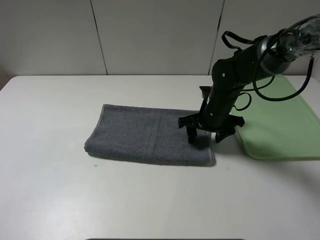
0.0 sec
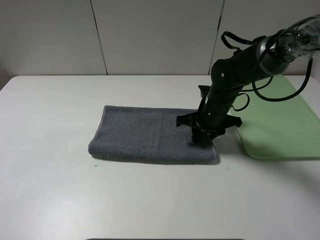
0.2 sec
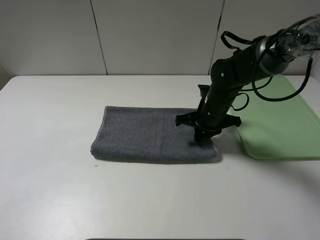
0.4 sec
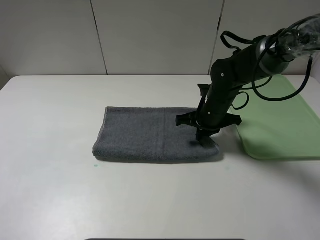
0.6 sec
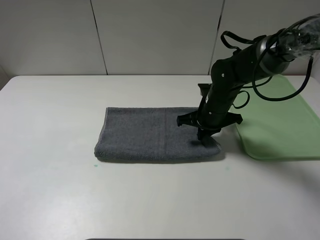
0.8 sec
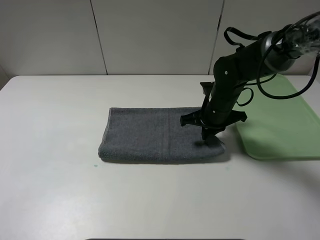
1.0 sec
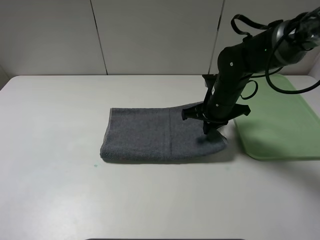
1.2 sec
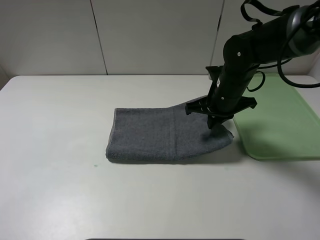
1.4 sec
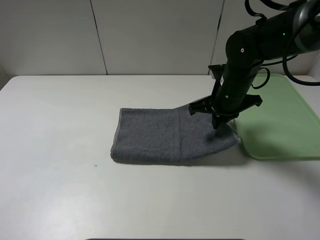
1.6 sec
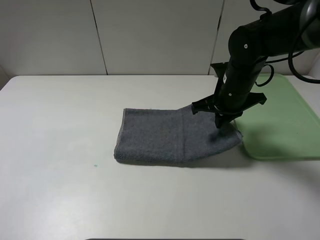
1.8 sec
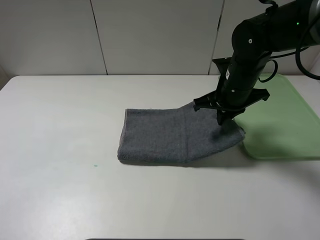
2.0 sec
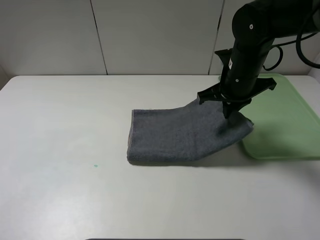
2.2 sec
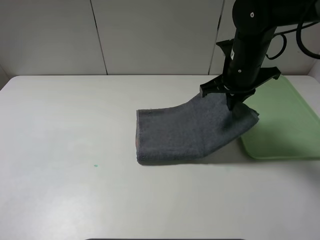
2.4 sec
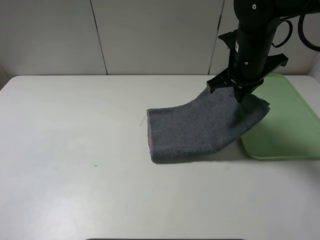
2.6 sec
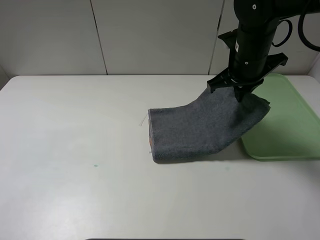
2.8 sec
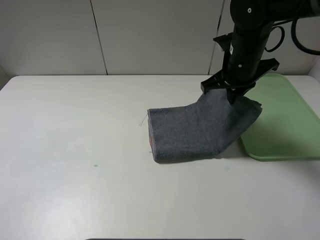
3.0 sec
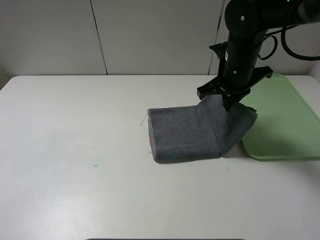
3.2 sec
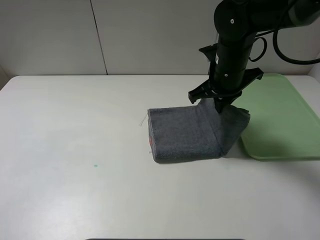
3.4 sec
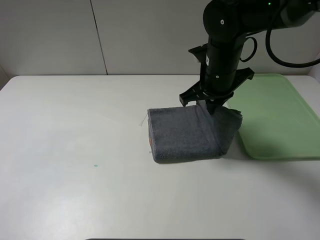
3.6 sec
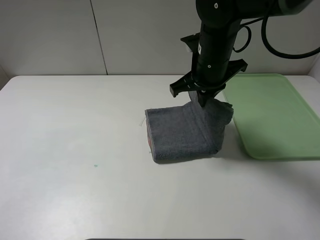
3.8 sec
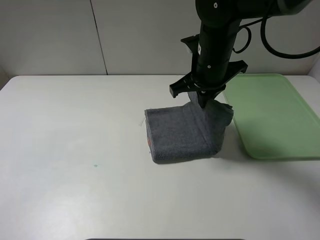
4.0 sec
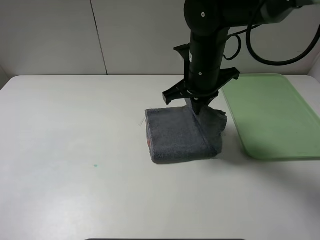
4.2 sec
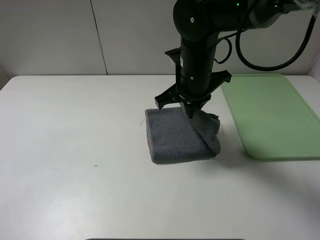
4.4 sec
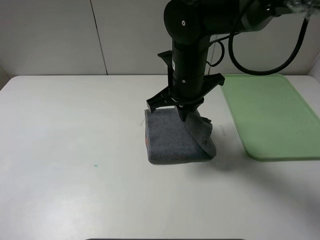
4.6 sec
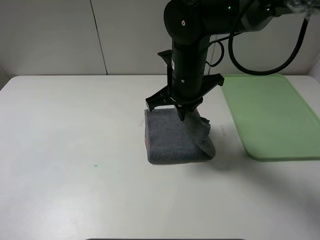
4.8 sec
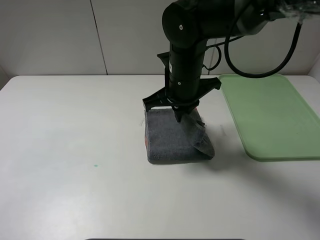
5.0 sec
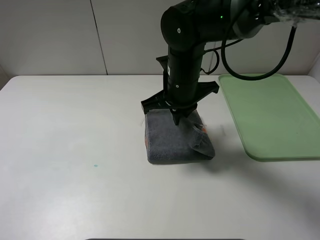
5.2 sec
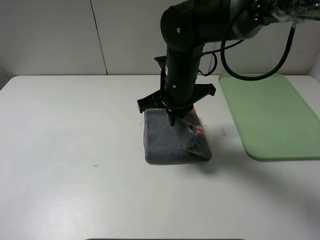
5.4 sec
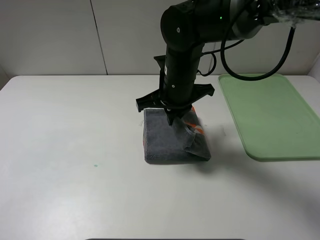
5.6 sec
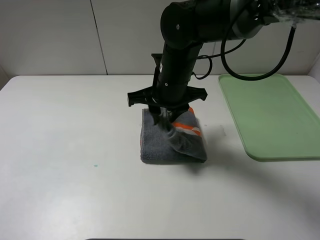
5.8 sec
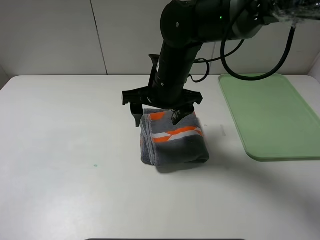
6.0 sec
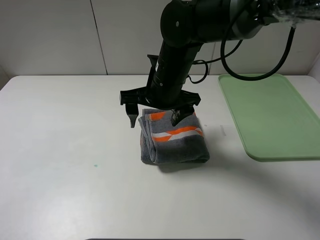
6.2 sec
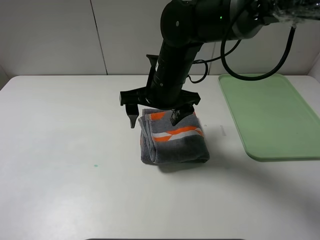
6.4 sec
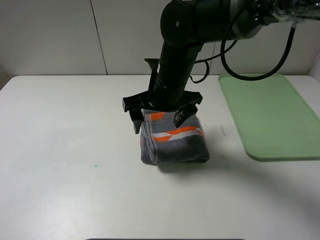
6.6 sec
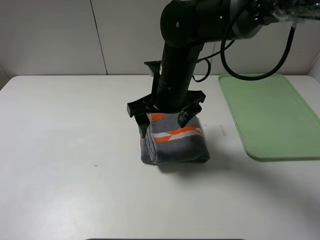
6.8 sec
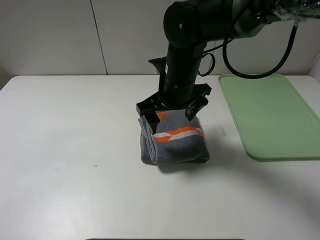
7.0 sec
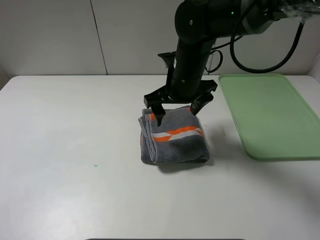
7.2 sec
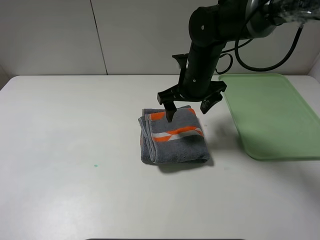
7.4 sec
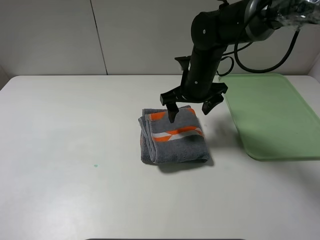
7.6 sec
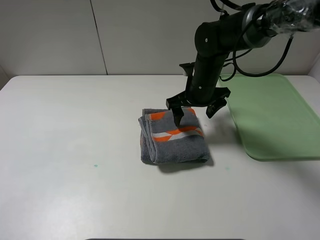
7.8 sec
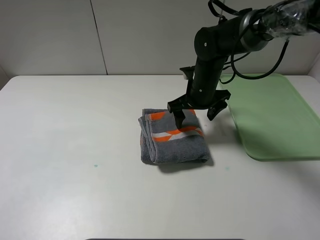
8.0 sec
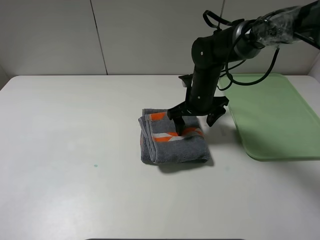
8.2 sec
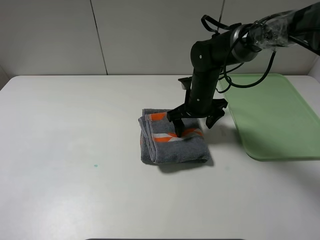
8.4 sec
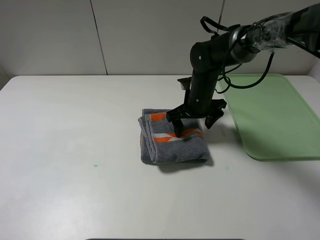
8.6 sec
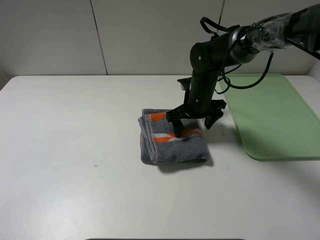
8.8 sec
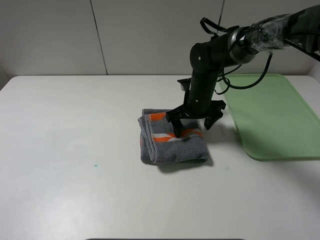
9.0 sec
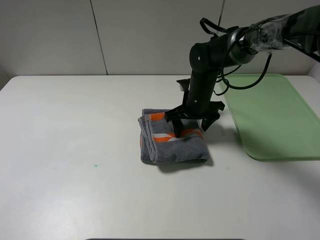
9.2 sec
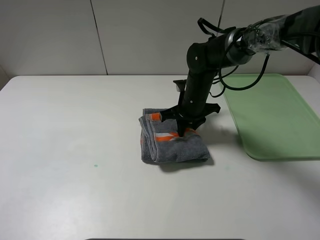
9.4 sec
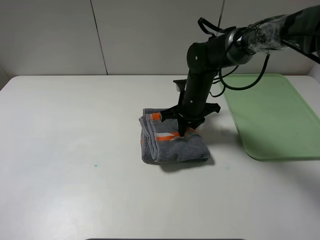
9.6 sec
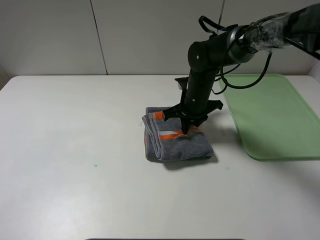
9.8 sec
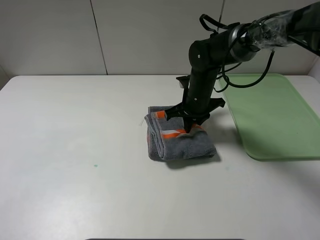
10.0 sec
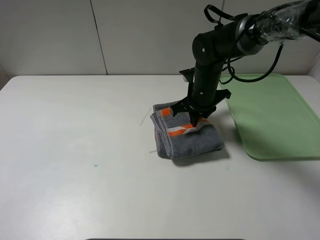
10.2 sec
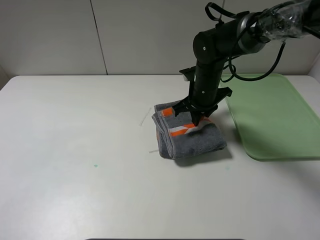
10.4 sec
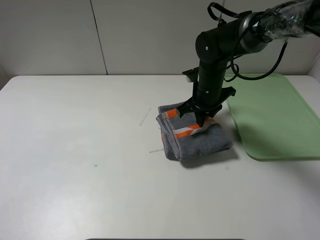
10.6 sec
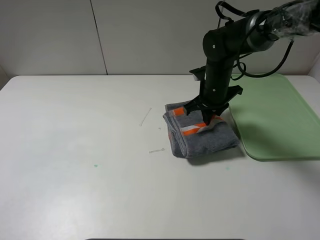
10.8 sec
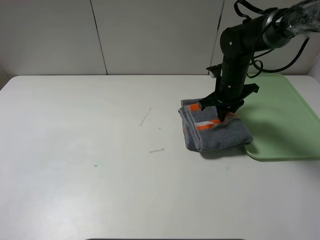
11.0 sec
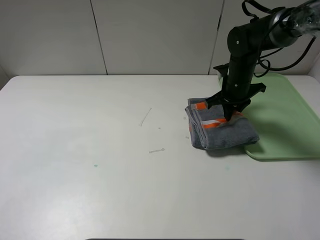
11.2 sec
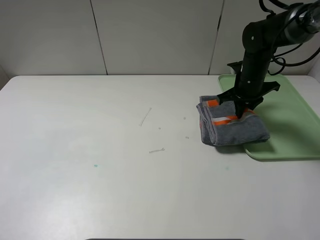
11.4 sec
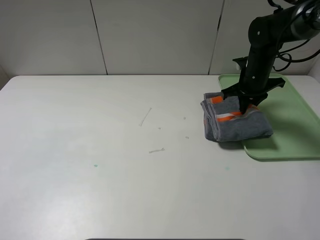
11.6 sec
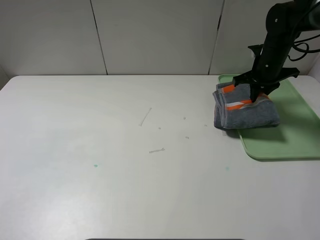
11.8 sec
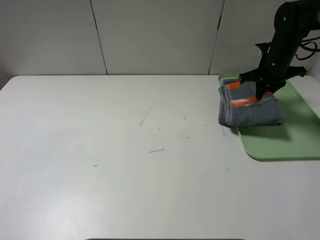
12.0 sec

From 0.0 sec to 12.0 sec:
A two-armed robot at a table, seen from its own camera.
Step, from 0.0 sec to 6.0 sec: Fold the grey towel from right to left with right gripper.
From 0.0 sec to 1.6 sec: The right gripper travels upward by approximately 5 cm, and closes up.
From 1.6 sec to 3.0 sec: The right gripper goes approximately 5 cm upward.
From 3.0 sec to 4.4 sec: The right gripper moves to the left, approximately 10 cm.
From 4.4 sec to 6.0 sec: The right gripper opens its fingers.
From 6.0 sec to 7.6 sec: The right gripper heads to the right and forward, covering some 10 cm.
From 7.6 sec to 9.0 sec: The right gripper moves downward, roughly 5 cm.
From 9.0 sec to 10.4 sec: The right gripper closes its fingers.
From 10.4 sec to 12.0 sec: The right gripper goes roughly 20 cm to the right.

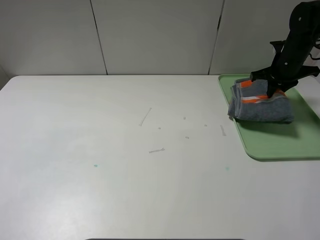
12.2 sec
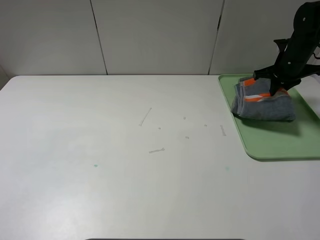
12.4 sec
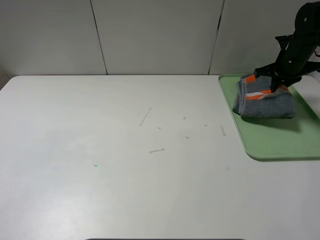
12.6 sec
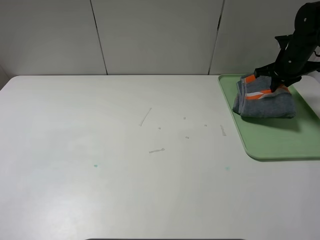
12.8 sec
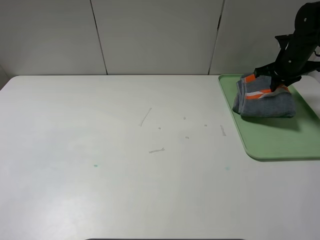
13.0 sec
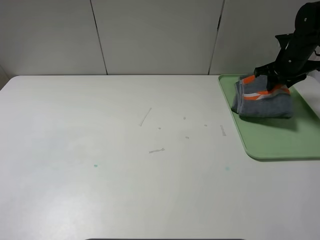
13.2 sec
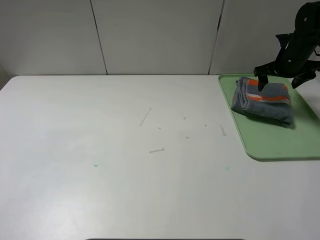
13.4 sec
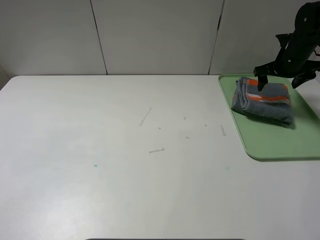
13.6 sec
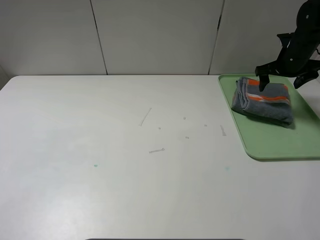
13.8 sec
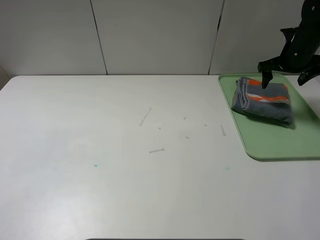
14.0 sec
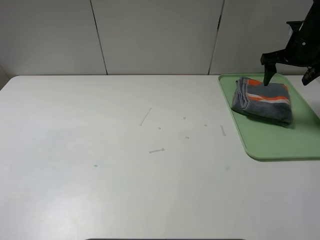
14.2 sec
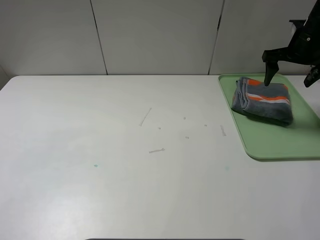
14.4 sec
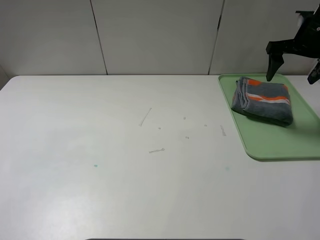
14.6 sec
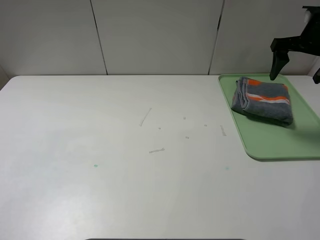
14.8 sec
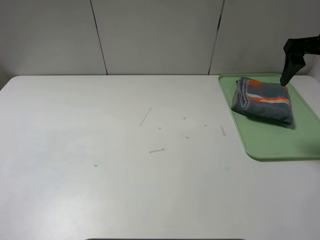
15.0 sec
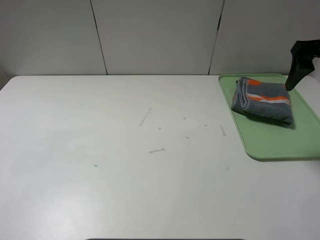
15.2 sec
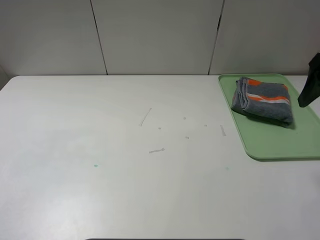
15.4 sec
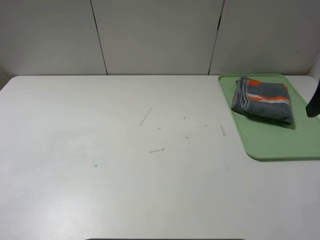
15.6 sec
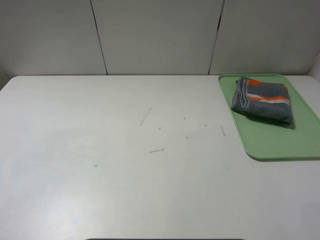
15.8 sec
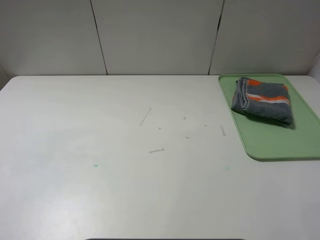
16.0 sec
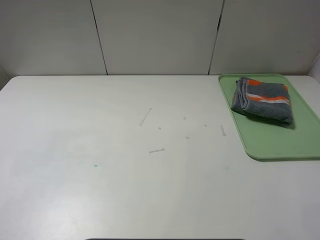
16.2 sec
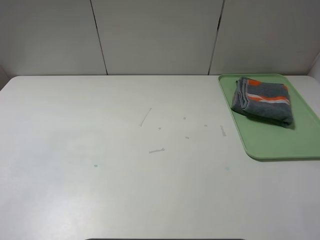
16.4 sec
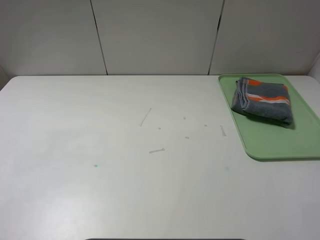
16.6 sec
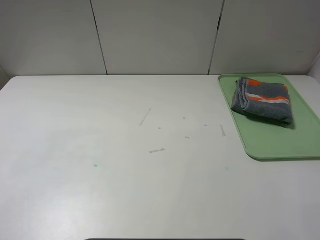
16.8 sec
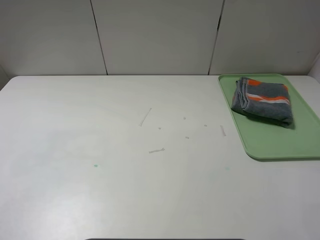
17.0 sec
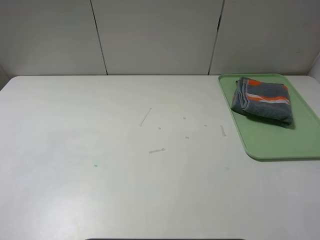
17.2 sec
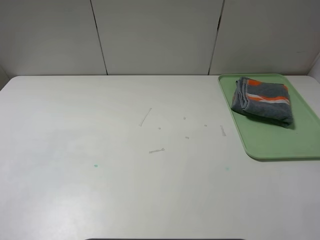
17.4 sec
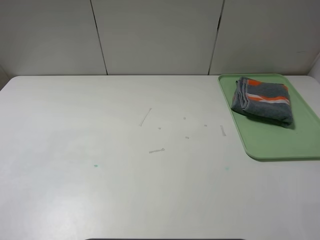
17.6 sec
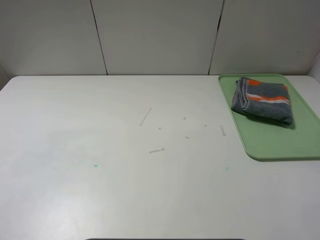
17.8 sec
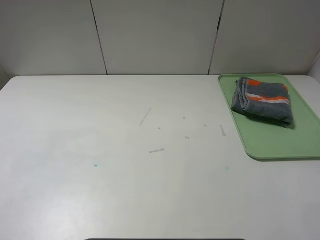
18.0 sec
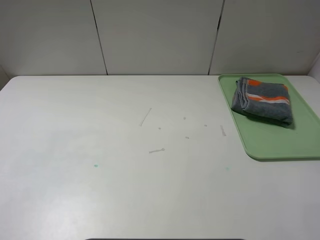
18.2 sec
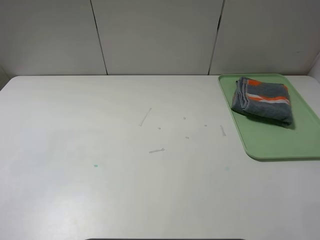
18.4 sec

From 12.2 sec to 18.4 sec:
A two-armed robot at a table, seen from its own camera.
From 12.2 sec to 13.8 sec: The right gripper opens its fingers.
From 13.8 sec to 15.4 sec: The right gripper goes some 25 cm backward and upward.
From 15.4 sec to 16.8 sec: The right gripper is displaced backward by approximately 25 cm.
From 16.8 sec to 18.4 sec: Both grippers stay put.
